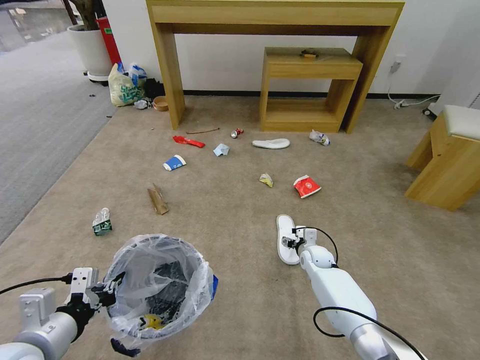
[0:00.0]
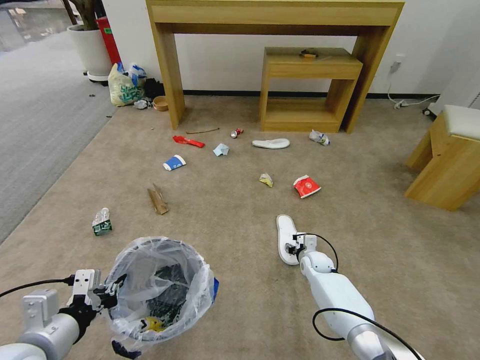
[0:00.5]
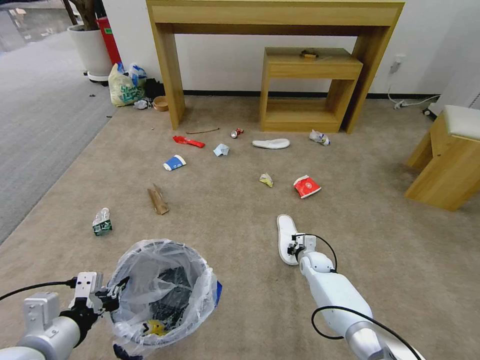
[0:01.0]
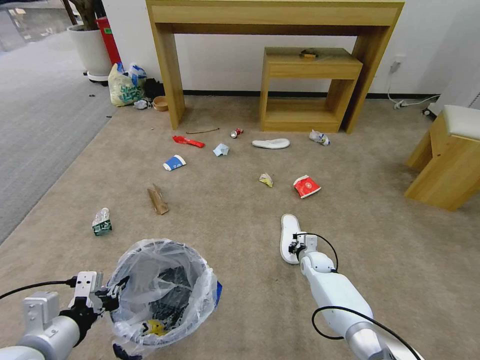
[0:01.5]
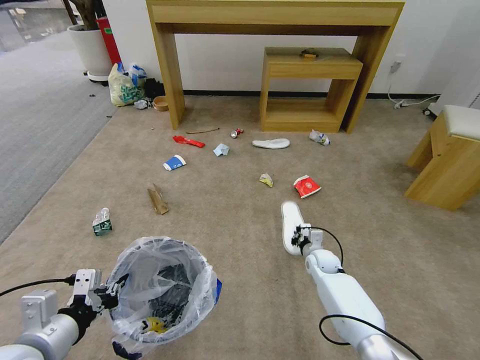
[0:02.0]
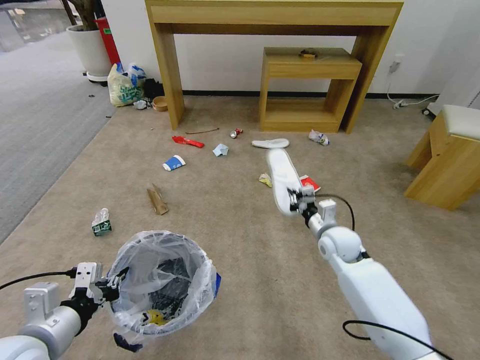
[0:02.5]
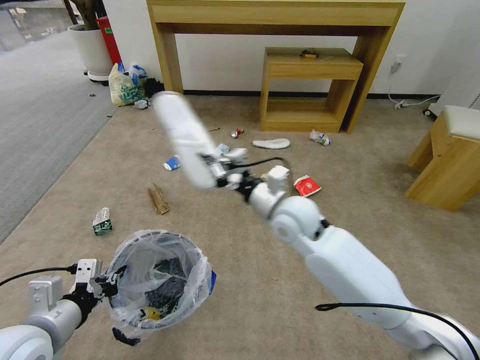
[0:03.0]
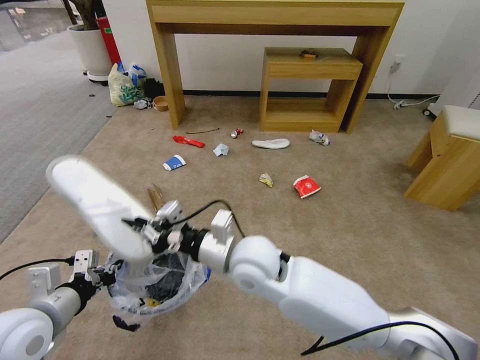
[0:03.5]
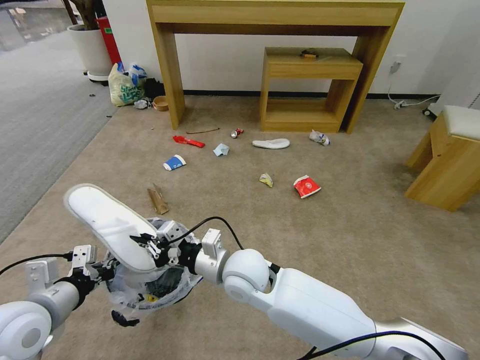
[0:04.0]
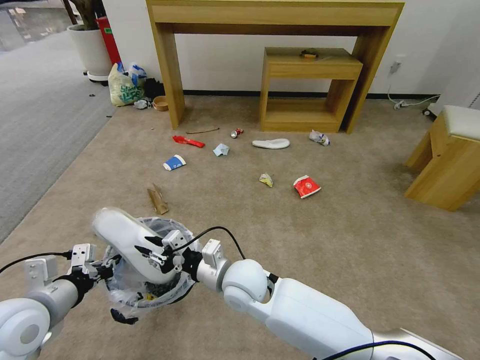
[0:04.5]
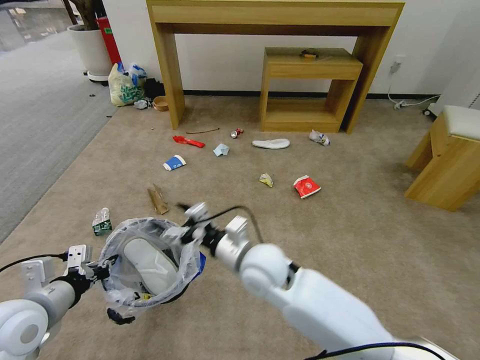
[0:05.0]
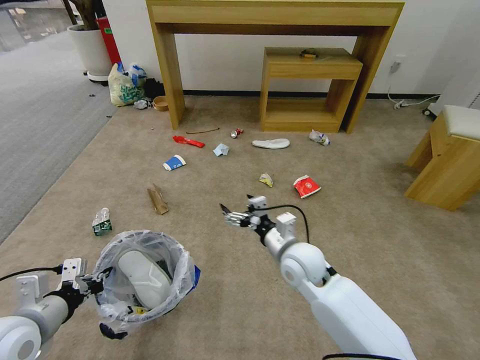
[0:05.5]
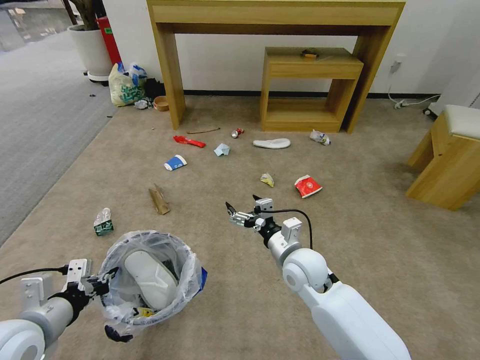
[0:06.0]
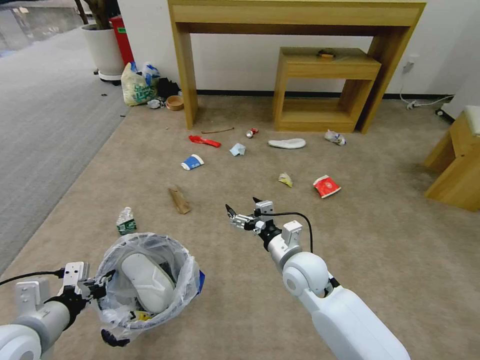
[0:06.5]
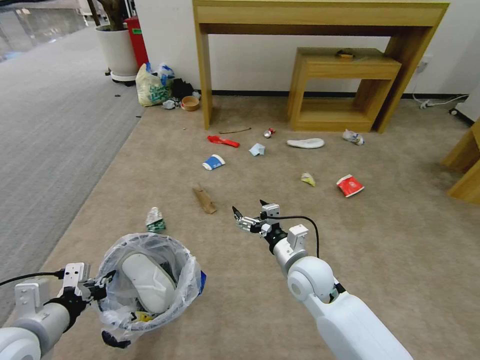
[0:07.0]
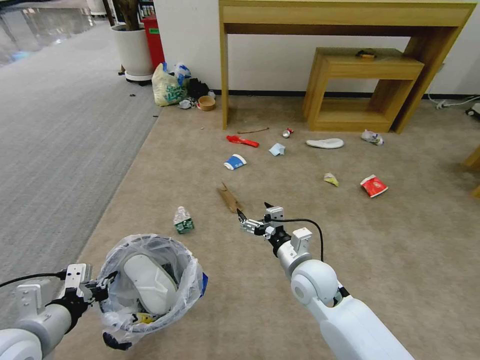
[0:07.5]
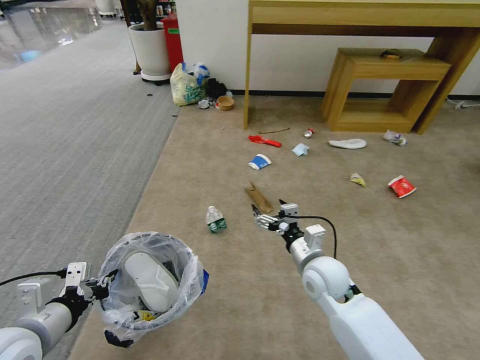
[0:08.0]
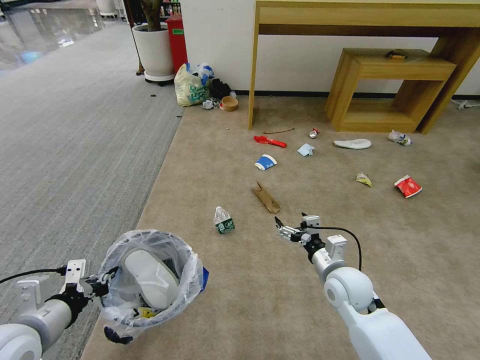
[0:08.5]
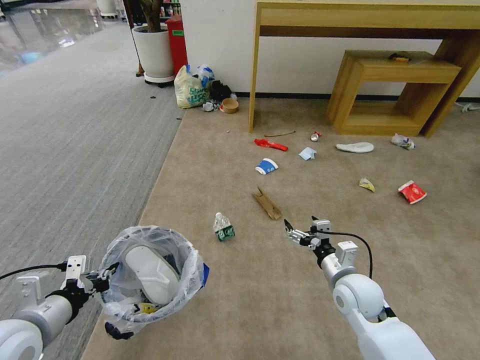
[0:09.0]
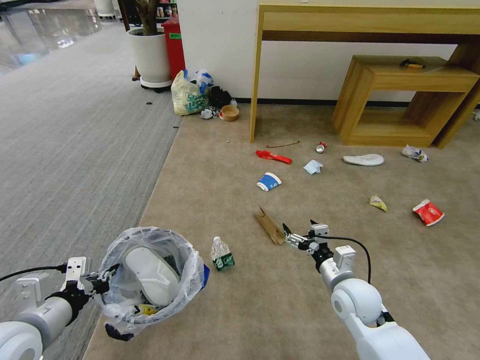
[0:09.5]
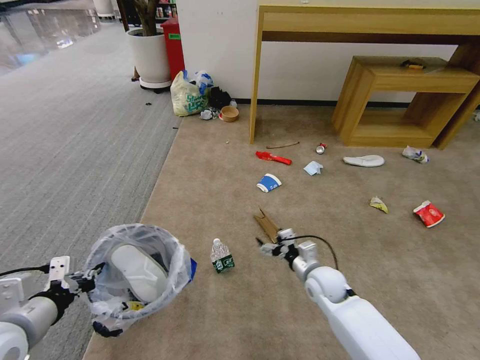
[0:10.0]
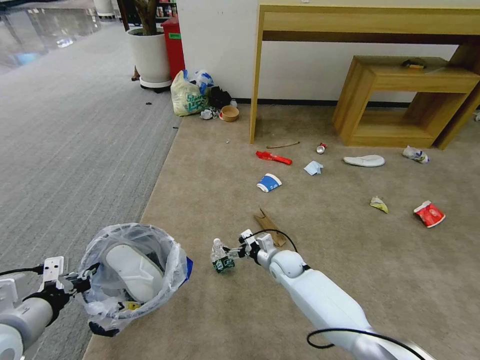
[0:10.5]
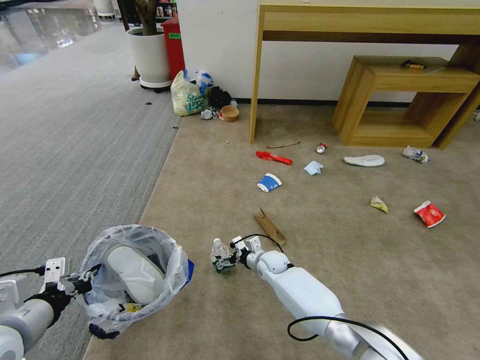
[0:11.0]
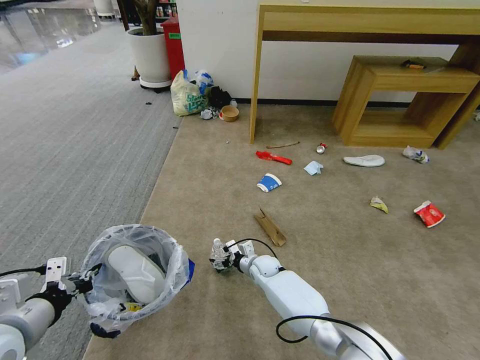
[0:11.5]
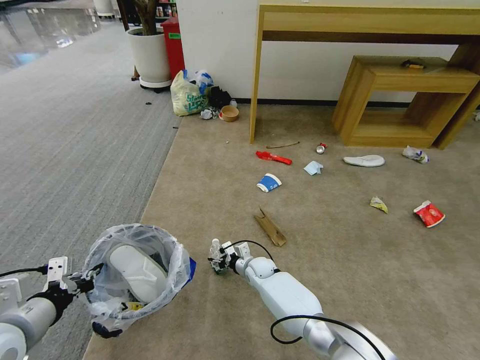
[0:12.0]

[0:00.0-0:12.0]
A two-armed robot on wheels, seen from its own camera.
Task of the whole recording: Pick up the trash bin and place the garbage on the floor into it.
0:00.0 to 0:02.0: The right gripper closes up.
0:02.0 to 0:04.0: The right gripper moves to the left, upward and backward, roughly 35 cm, while the left gripper heads forward, covering about 5 cm.
0:04.0 to 0:06.0: The right gripper travels to the right by about 15 cm, and opens up.
0:08.0 to 0:10.0: The right gripper moves downward, roughly 10 cm.
0:10.0 to 0:12.0: The right gripper shifts about 20 cm to the left, downward and forward, and closes up.

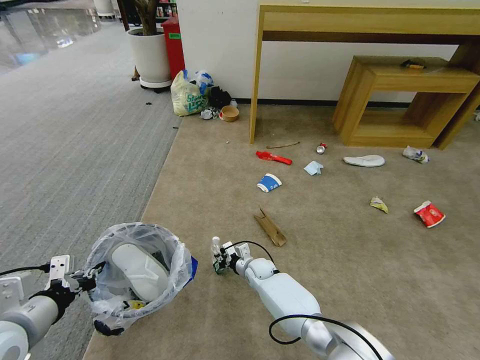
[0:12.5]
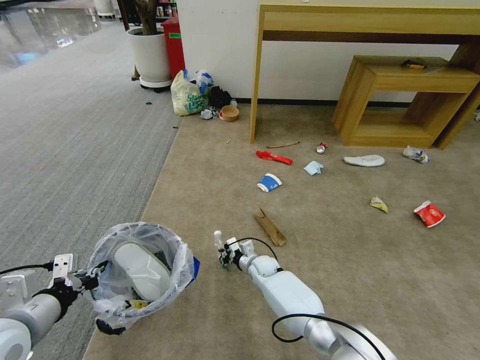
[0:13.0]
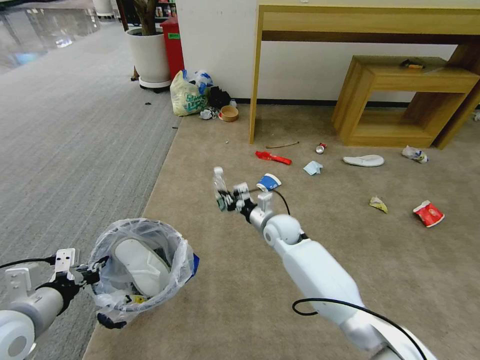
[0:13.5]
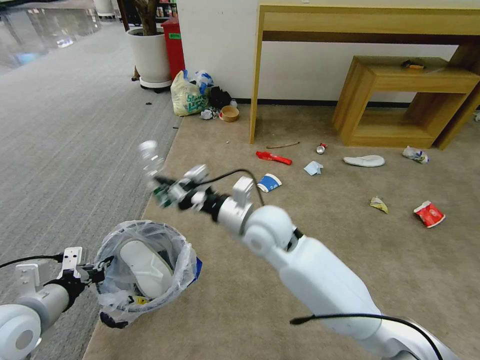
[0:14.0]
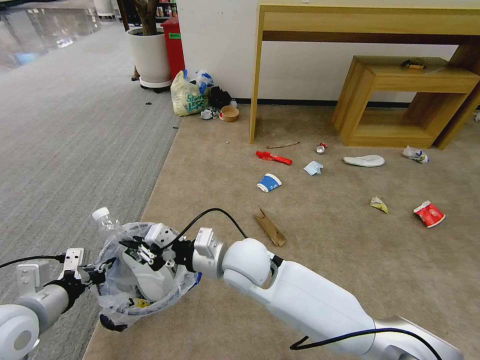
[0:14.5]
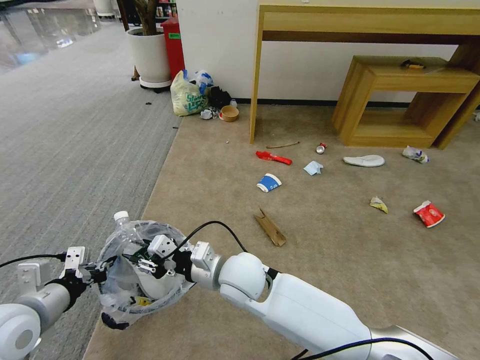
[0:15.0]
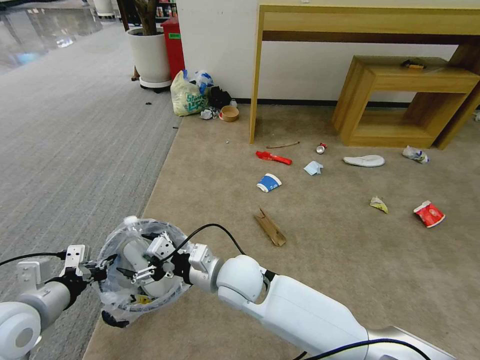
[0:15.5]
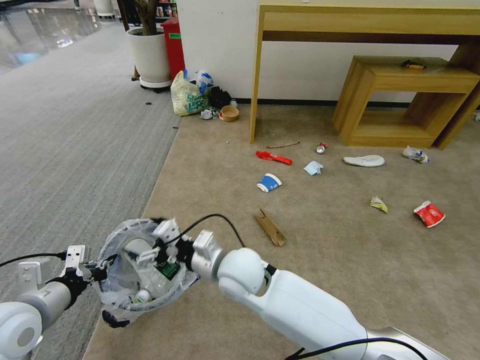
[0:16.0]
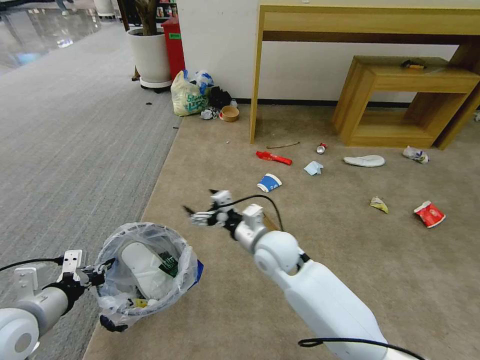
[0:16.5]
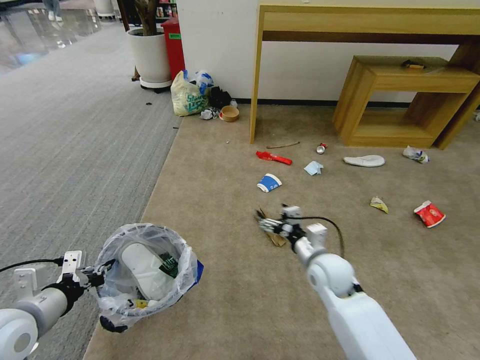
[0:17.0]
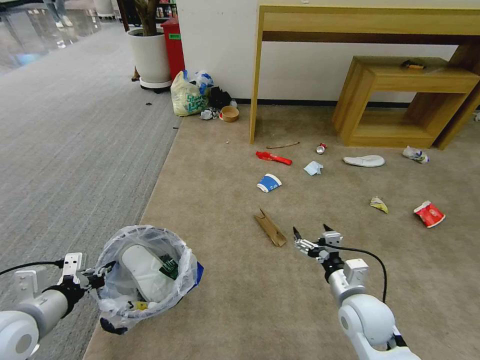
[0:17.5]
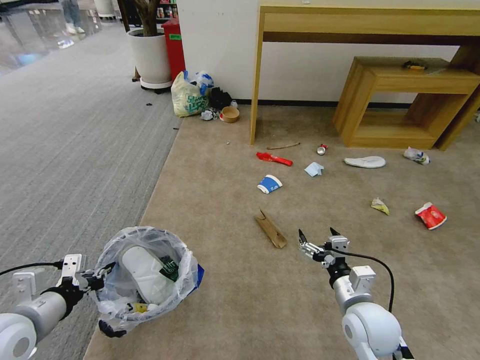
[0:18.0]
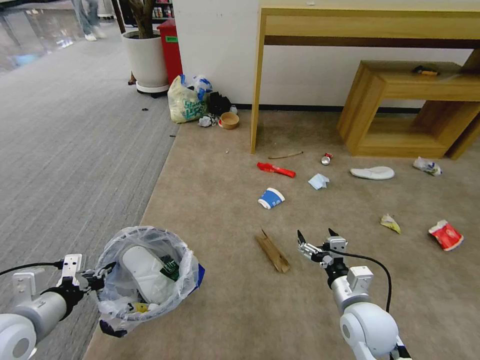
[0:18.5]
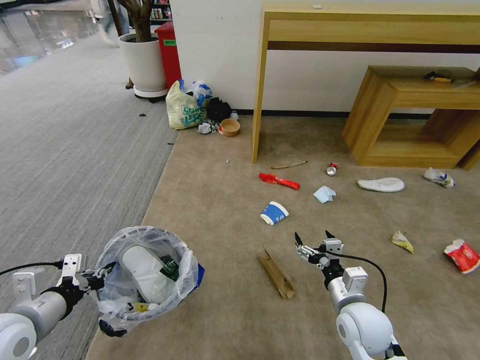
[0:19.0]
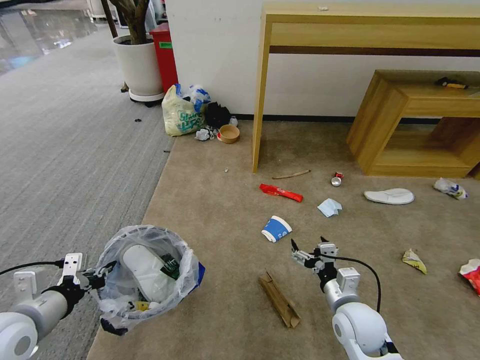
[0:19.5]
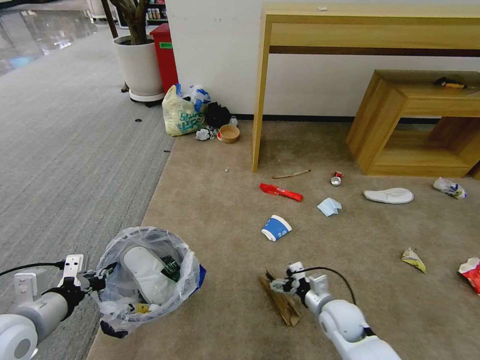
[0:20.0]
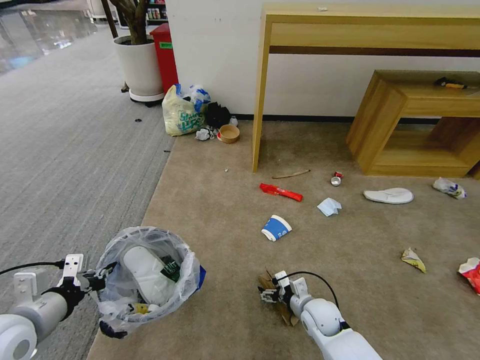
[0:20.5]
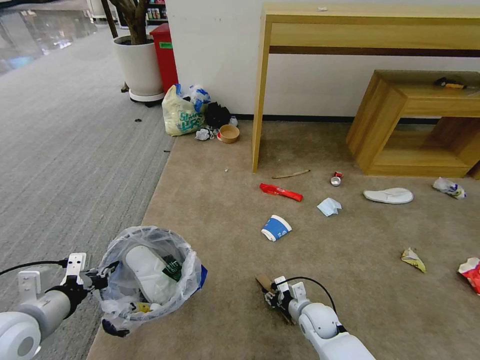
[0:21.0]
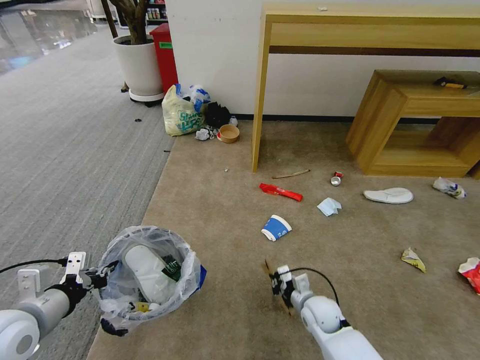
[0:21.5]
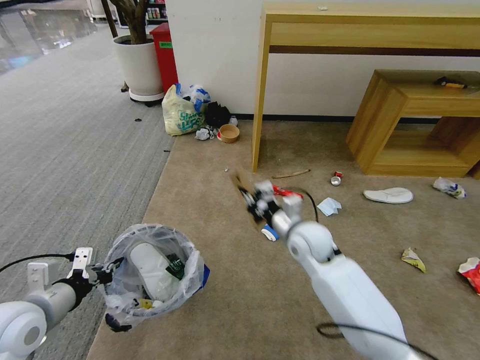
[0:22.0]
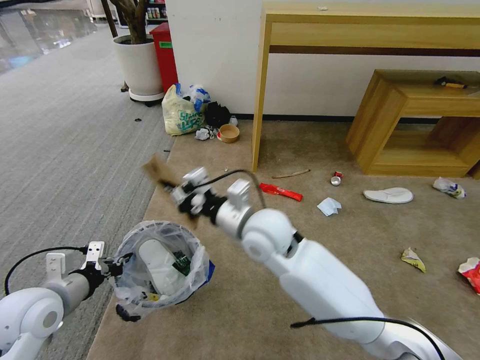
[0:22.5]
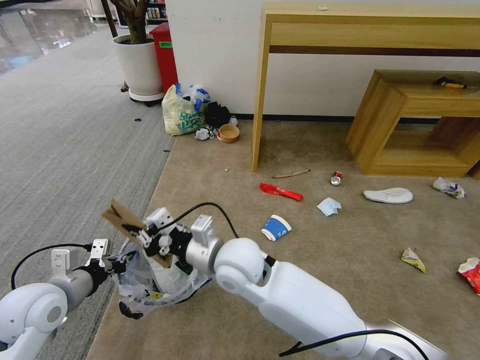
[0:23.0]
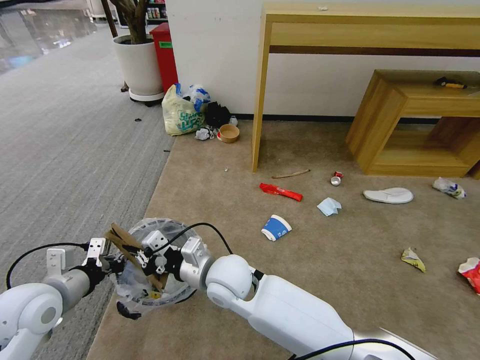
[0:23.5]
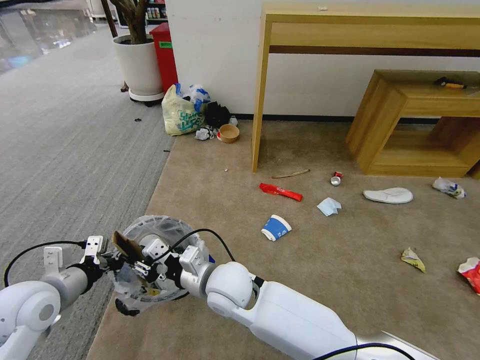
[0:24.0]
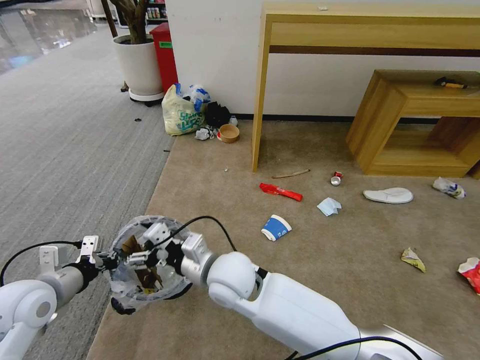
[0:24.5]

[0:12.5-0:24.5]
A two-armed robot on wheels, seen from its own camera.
Task of the whole recording: Pick up the trash bin and place the garbage on the floor into it.
0:12.5 to 0:14.5: The right gripper is displaced upward and backward by roughly 30 cm.
0:14.5 to 0:16.5: The right gripper travels to the right by some 5 cm, and opens up.
0:16.5 to 0:18.5: The right gripper is displaced to the right and backward by some 25 cm.
0:18.5 to 0:20.5: The right gripper moves downward, about 15 cm.
0:20.5 to 0:22.5: The right gripper travels upward and to the left by roughly 35 cm, and closes its fingers.
0:22.5 to 0:24.5: The right gripper moves to the left, backward and downward, approximately 15 cm, and opens up.

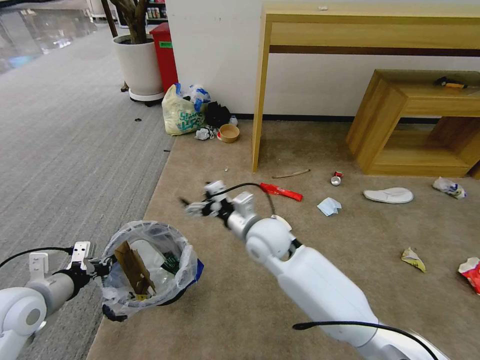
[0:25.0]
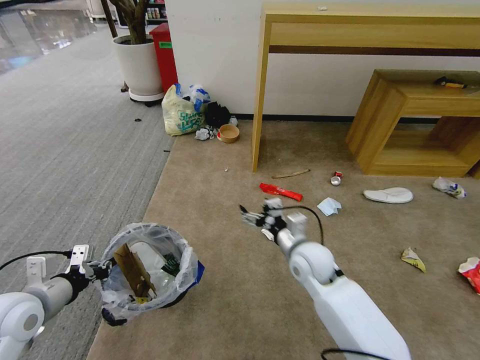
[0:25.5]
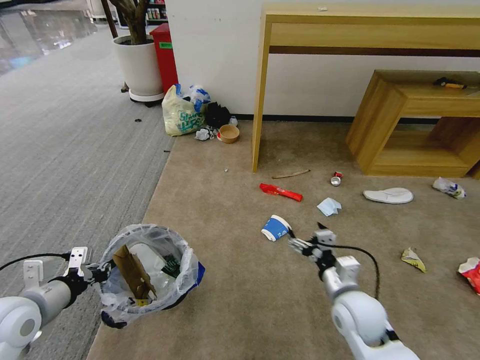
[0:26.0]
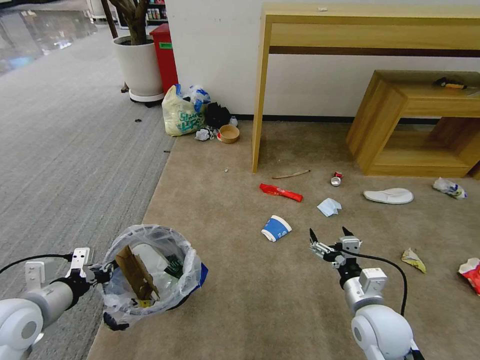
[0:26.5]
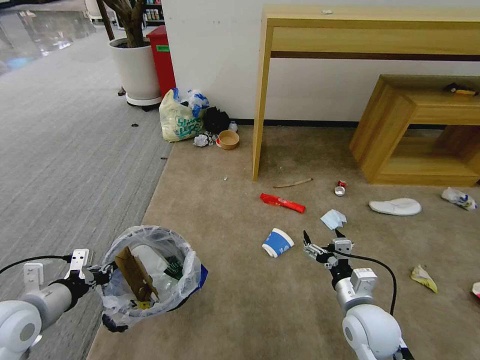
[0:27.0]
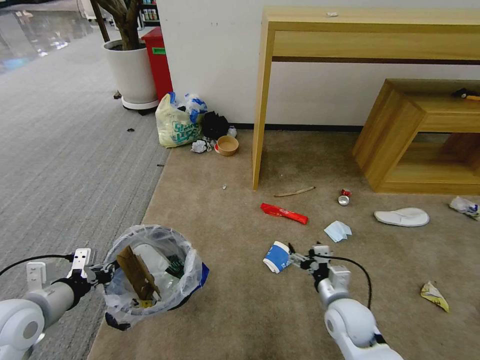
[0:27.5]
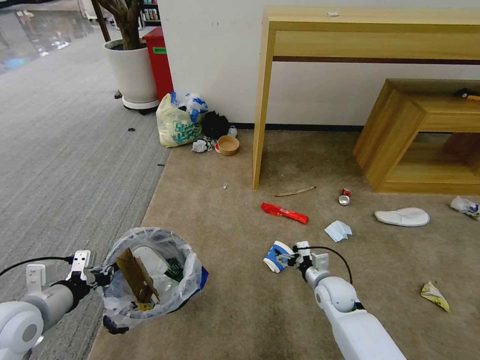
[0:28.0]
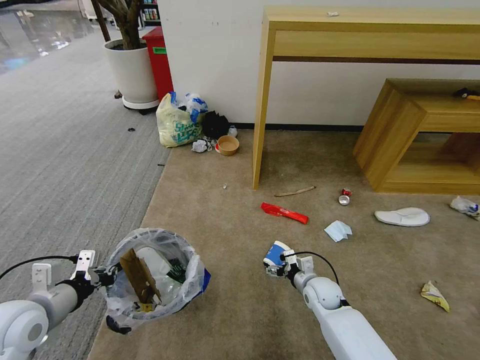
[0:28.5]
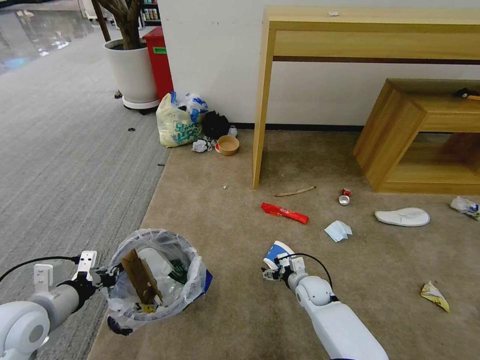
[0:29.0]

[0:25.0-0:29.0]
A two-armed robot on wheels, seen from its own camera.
Task of the whole recording: Pick up the trash bin and place the garbage on the floor into it.
0:25.0 to 0:27.0: The right gripper goes some 25 cm to the right, backward and downward.
0:27.0 to 0:29.0: The right gripper moves downward and forward, approximately 20 cm.
